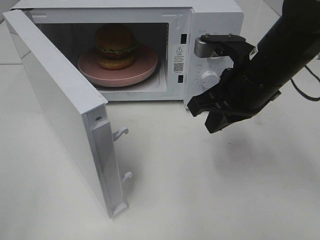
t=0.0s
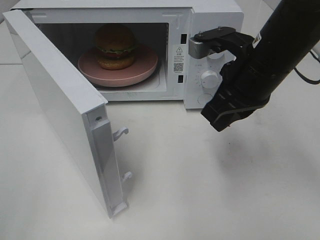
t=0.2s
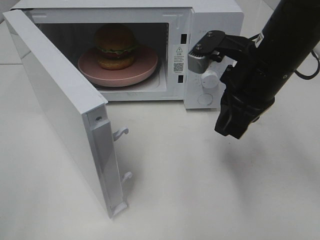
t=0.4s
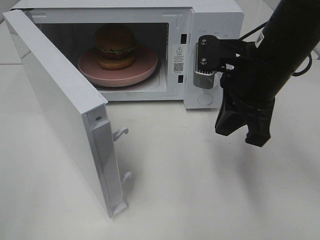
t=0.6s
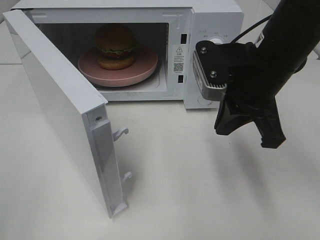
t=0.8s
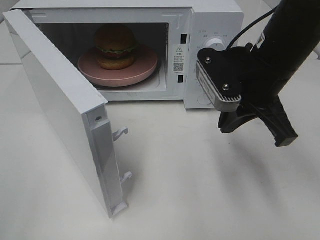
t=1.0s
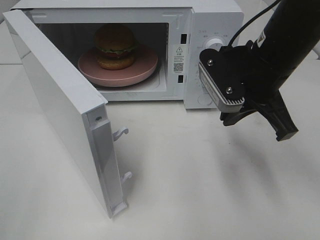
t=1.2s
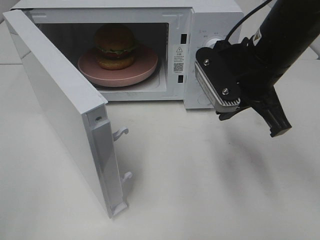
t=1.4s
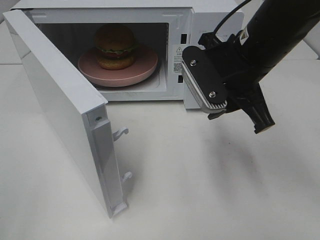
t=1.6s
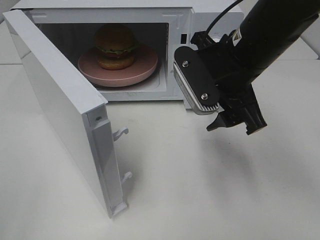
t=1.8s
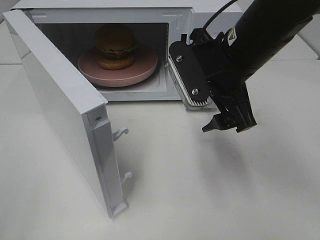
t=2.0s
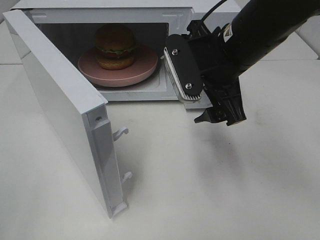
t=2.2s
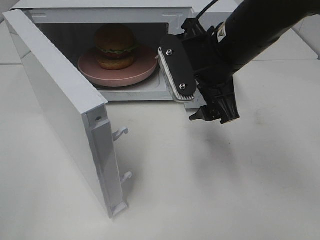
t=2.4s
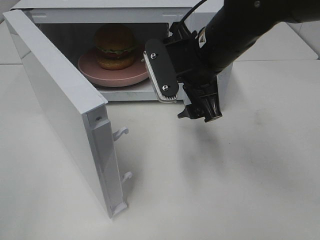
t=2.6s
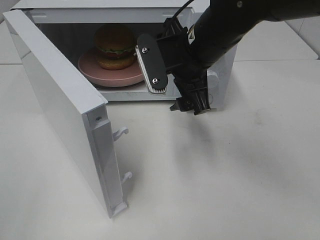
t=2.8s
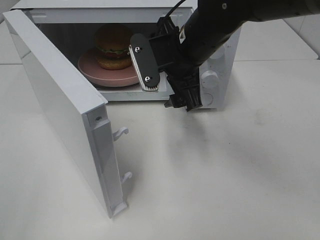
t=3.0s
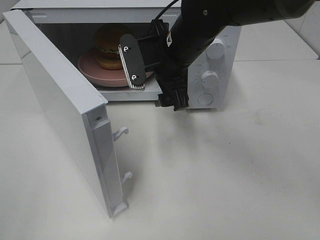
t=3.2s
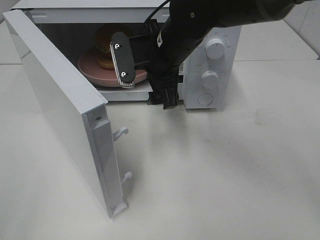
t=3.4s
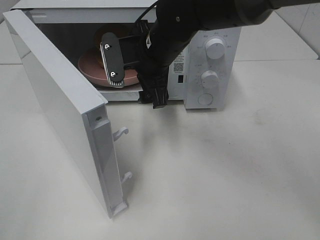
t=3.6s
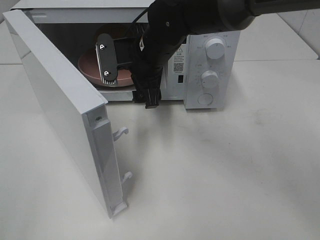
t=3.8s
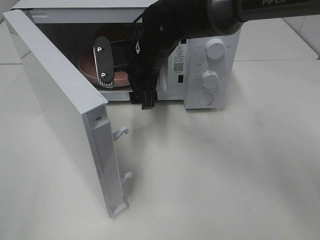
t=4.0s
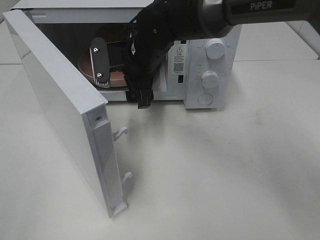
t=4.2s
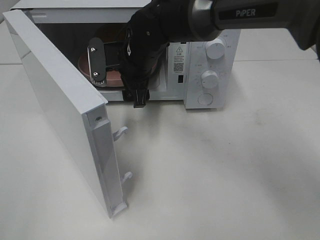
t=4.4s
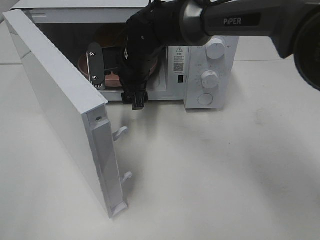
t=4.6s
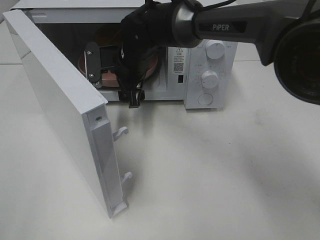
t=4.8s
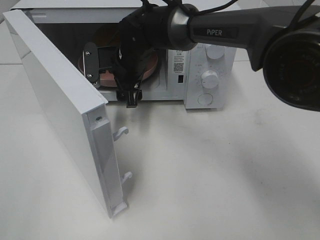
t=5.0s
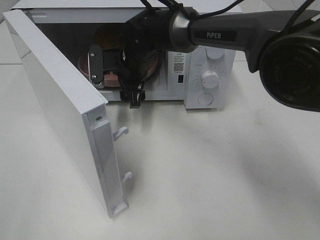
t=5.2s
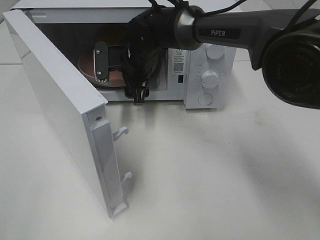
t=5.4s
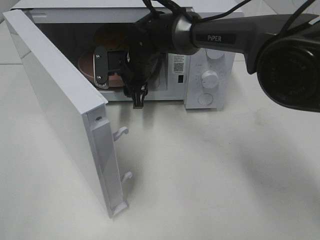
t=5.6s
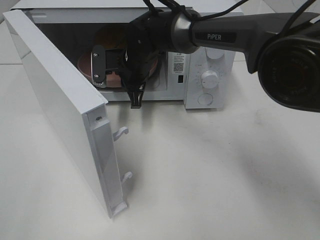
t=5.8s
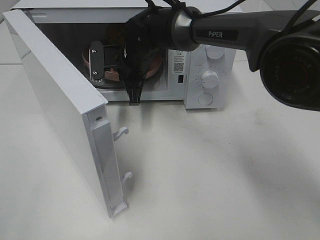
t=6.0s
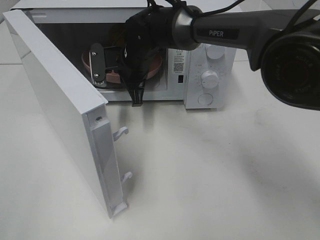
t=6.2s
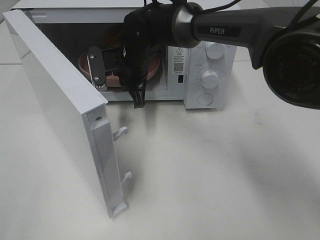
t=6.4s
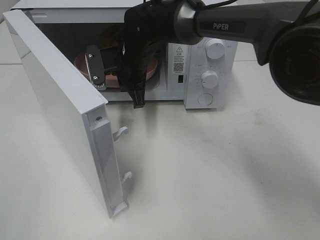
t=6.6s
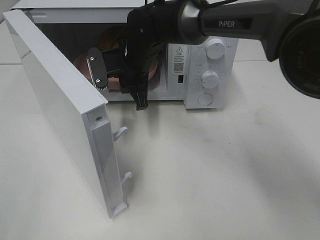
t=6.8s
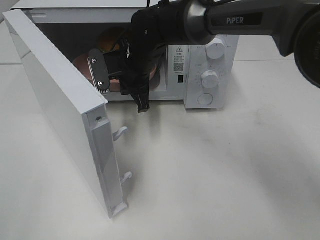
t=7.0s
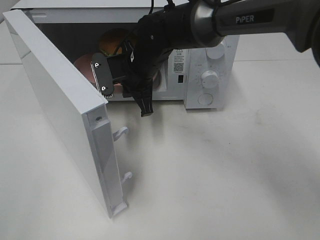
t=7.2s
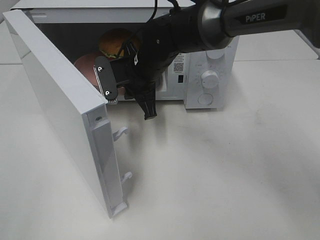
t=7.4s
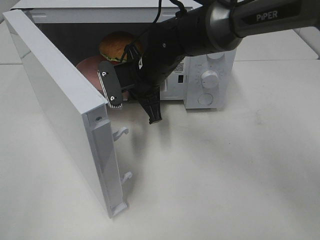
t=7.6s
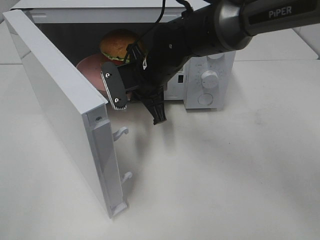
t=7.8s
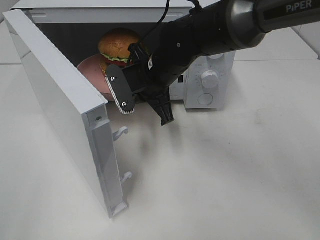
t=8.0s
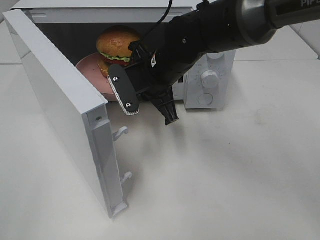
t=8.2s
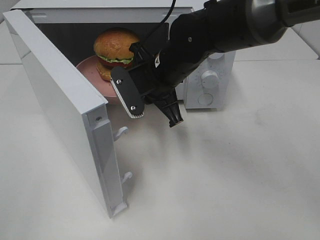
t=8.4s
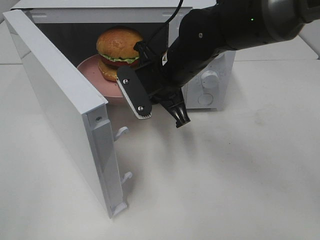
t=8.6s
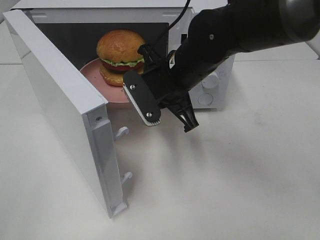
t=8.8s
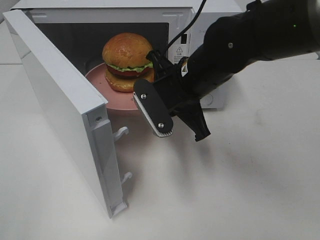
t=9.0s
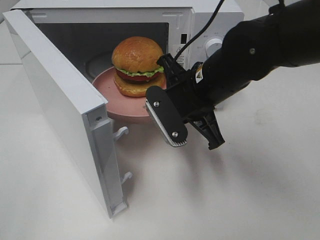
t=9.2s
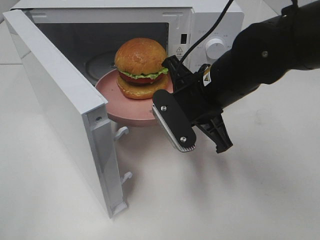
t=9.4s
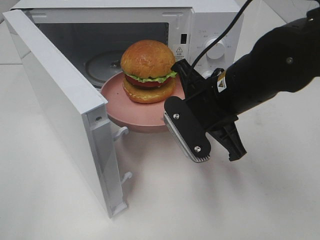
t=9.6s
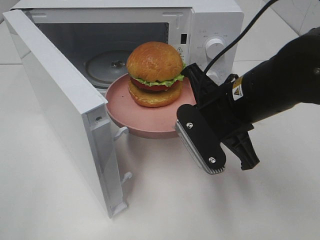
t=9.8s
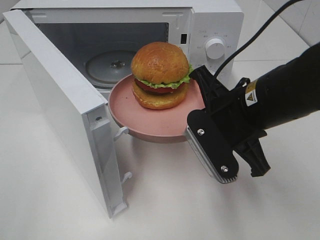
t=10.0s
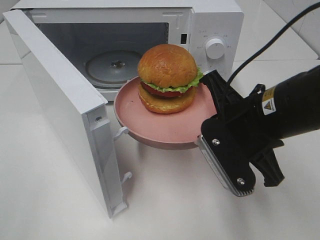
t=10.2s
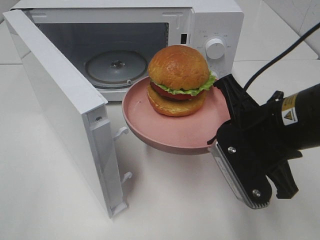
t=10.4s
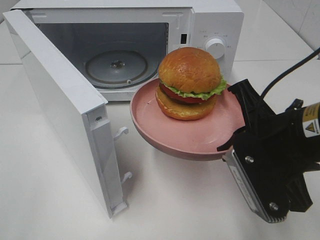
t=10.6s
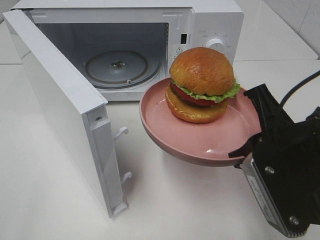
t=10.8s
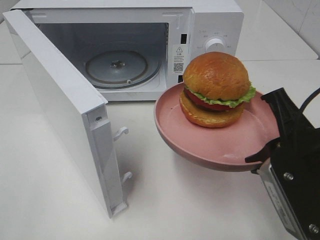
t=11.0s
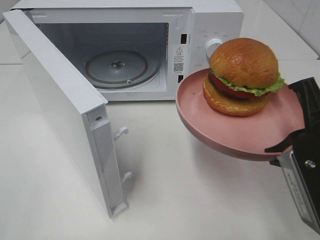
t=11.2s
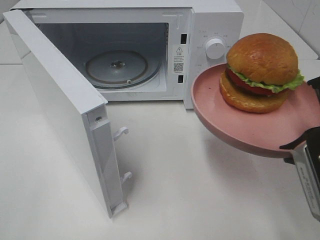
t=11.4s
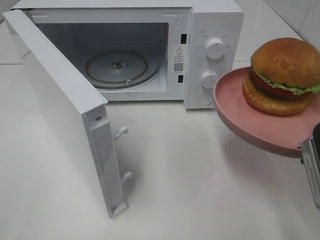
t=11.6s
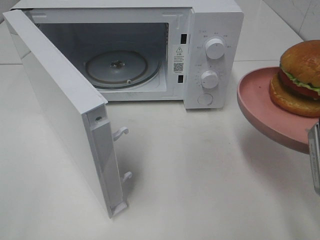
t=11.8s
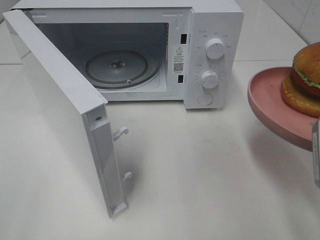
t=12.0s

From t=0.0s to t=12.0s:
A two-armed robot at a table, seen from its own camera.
Task of the whole recording: Heat the burger.
Step, from t=0.0s to t=5.8s: Right hand: grab the plate with the hamburger.
From t=0.0s to t=1.6s: The right gripper opens up.
From t=1.6s to t=3.0s: The right gripper goes some 10 cm to the left and forward, and opens its fingers.
From t=3.0s to t=4.4s: The right gripper goes approximately 10 cm to the left and forward.
From t=4.4s to t=6.0s: The right gripper closes up.
From t=6.0s to t=7.6s: The right gripper moves backward, about 5 cm.
From t=7.6s to t=9.0s: The right gripper is displaced backward and to the right by roughly 10 cm.
From t=9.0s to t=10.4s: The right gripper shifts about 15 cm backward and to the right.
From t=10.4s to t=12.0s: The right gripper heads to the right and backward, covering about 10 cm.

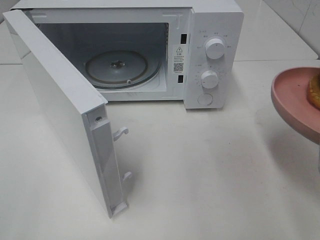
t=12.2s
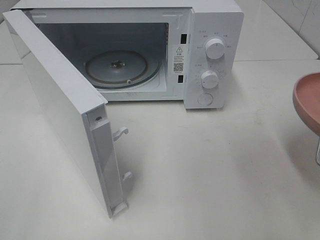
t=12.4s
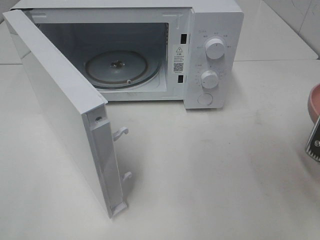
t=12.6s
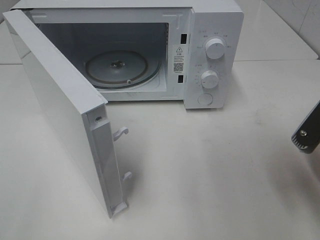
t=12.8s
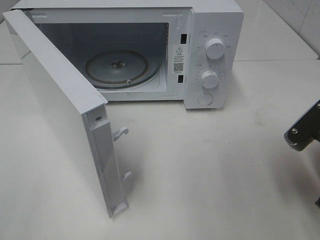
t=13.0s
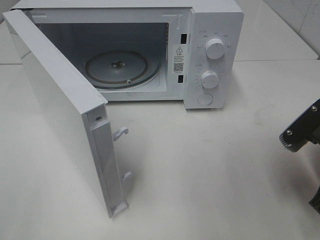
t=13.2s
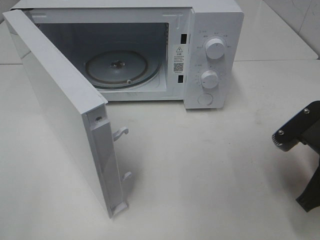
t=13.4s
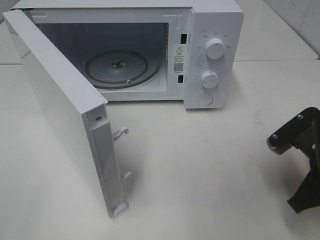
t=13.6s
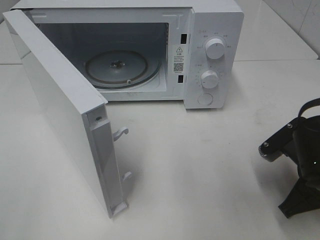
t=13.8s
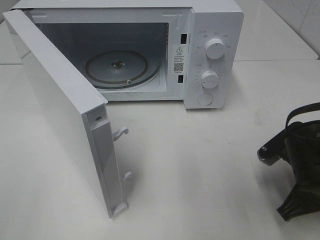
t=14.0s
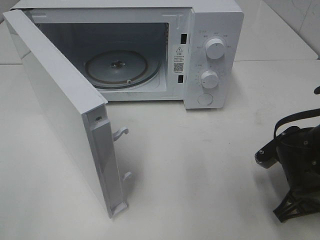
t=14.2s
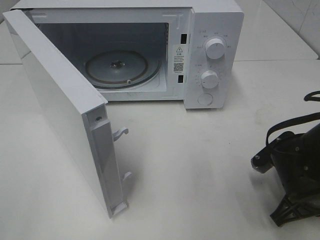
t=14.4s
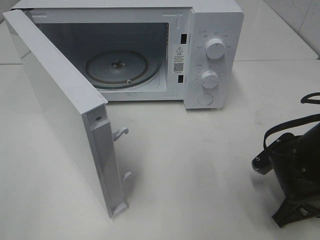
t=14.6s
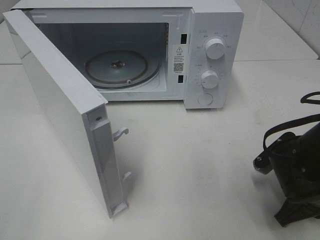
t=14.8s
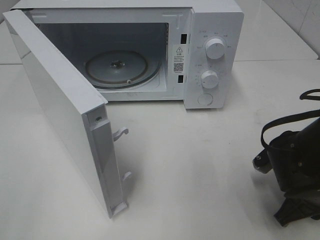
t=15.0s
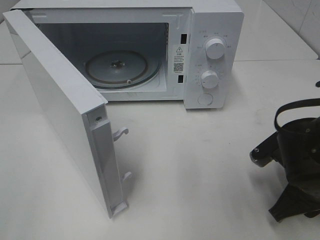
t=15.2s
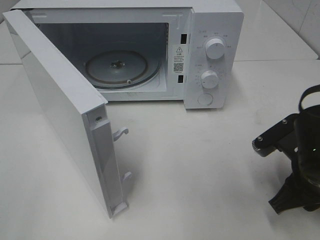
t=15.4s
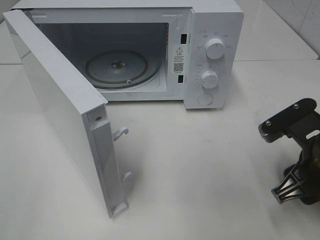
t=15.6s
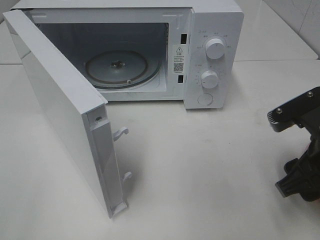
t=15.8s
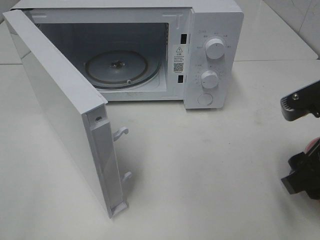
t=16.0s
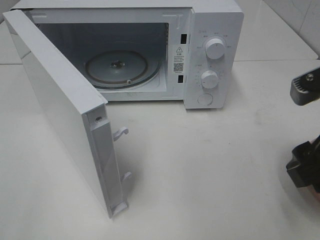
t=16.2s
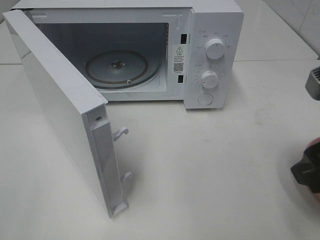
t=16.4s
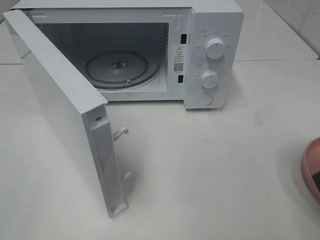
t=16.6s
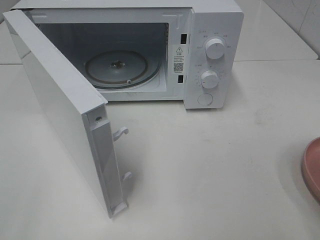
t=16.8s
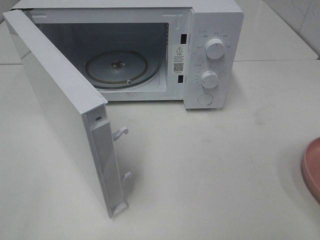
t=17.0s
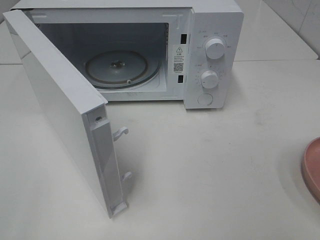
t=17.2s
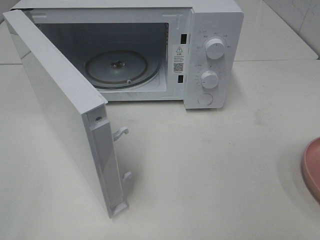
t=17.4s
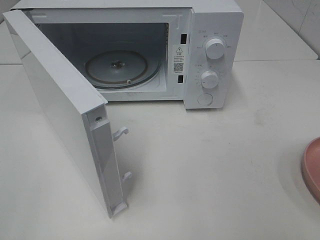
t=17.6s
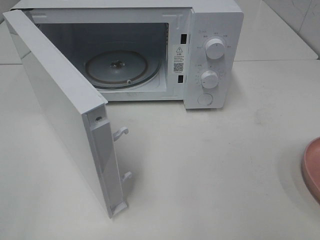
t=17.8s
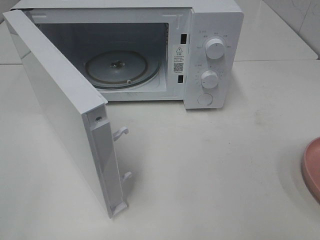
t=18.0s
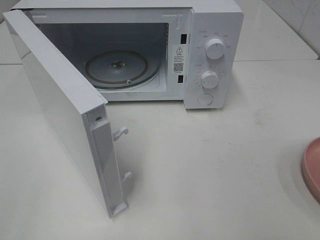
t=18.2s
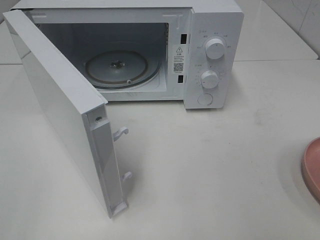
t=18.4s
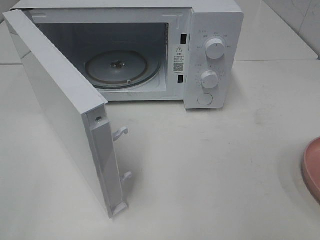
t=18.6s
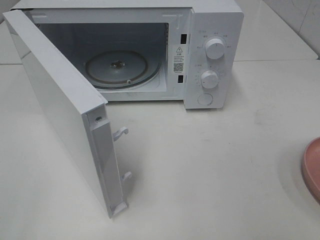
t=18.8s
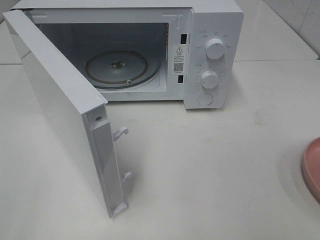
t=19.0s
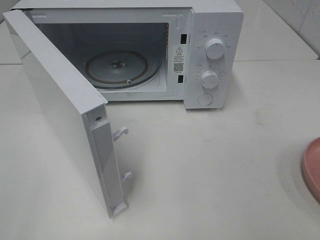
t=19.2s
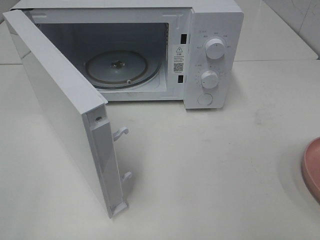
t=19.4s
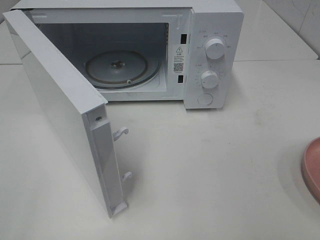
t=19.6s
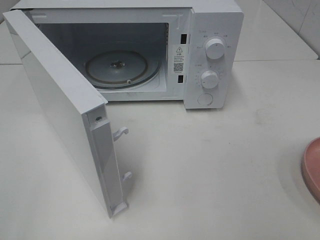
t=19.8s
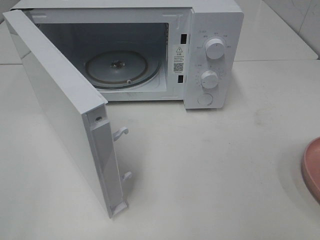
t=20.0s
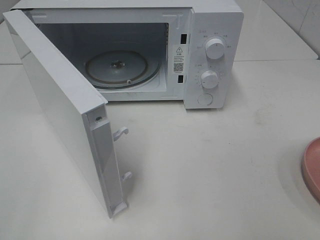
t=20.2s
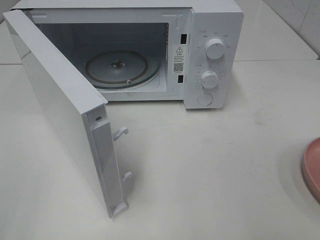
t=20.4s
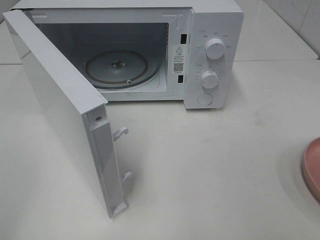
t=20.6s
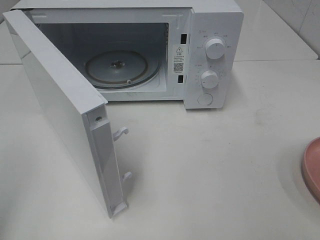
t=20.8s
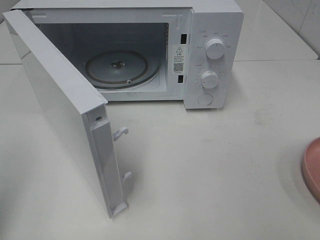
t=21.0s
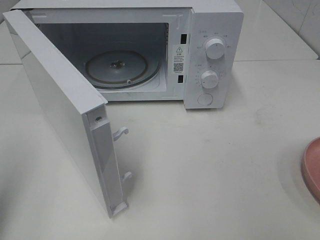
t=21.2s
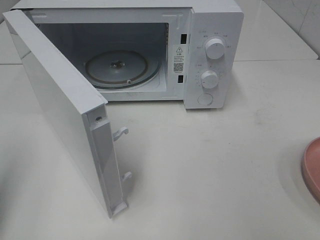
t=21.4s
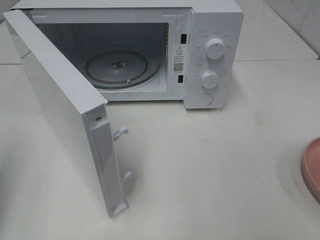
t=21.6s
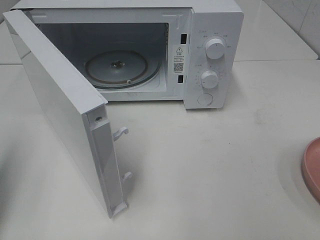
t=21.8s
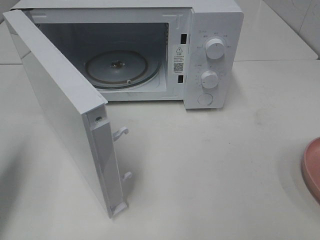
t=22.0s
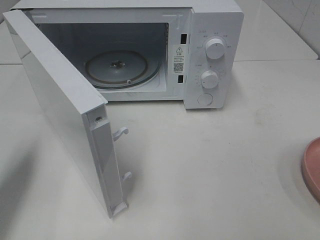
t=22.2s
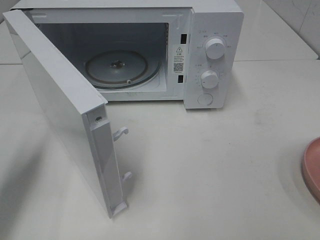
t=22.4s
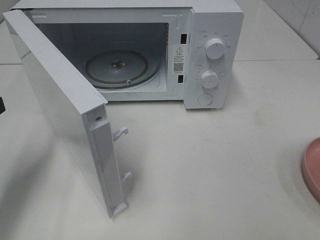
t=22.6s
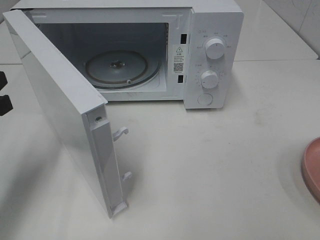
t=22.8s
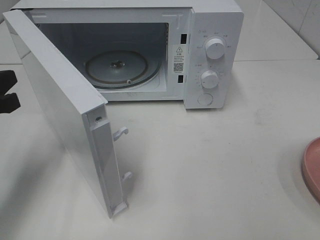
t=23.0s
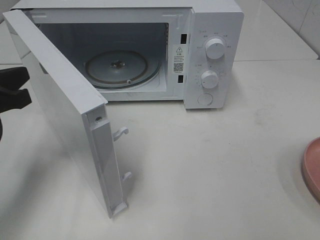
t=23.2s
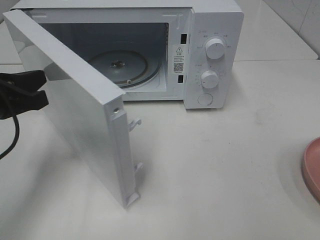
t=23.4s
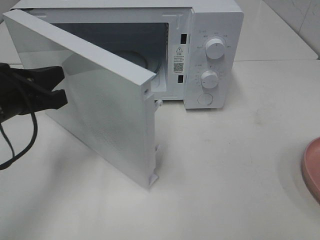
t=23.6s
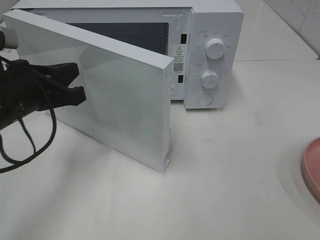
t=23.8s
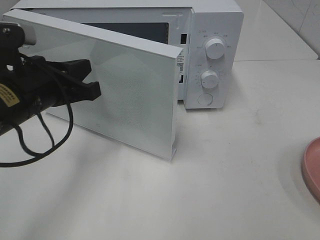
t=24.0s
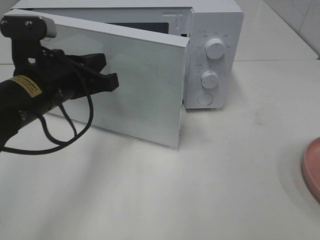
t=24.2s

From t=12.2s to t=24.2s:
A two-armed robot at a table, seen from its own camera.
Task of the whole recording: Heat the burger.
Step, from t=12.2s to t=15.0s: Right hand: place the plate on the table.
From t=12.2s to t=13.8s: The right gripper moves downward and forward, approximately 15 cm.
From t=13.8s to t=15.2s: The right gripper opens up.
From t=15.2s to t=16.6s: The right gripper moves upward and backward, roughly 20 cm.
From t=16.6s to t=18.2s: The right gripper is displaced backward and to the right by approximately 15 cm.
From t=18.2s to t=19.8s: The two grippers keep their place.
From t=19.8s to t=21.2s: The left gripper is displaced forward by about 10 cm, and closes its fingers.
From t=21.2s to t=22.6s: The left gripper travels forward and downward by some 10 cm.
From t=22.6s to t=24.2s: The left gripper heads to the right and forward, covering approximately 15 cm.
